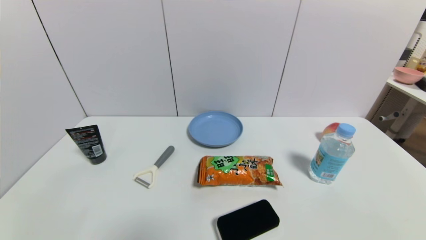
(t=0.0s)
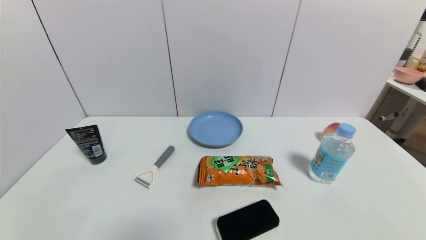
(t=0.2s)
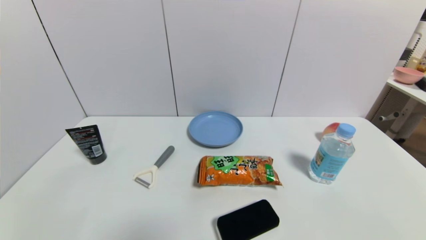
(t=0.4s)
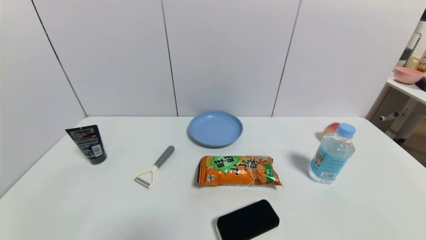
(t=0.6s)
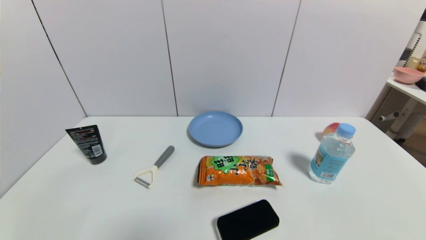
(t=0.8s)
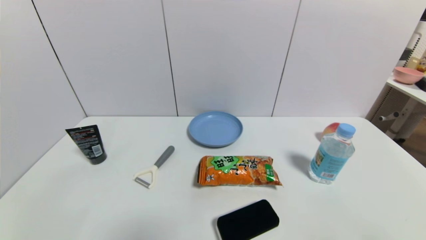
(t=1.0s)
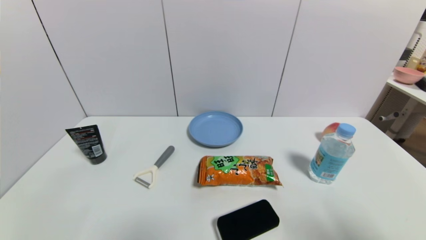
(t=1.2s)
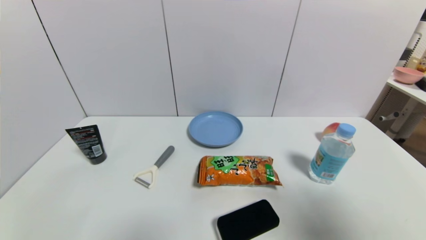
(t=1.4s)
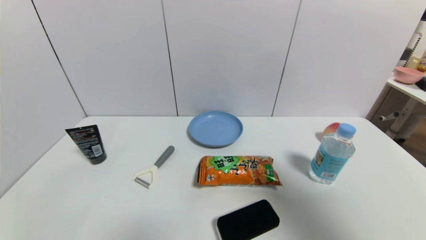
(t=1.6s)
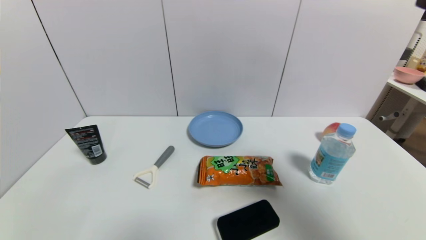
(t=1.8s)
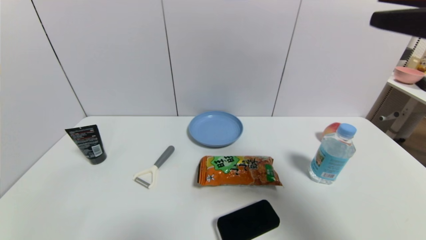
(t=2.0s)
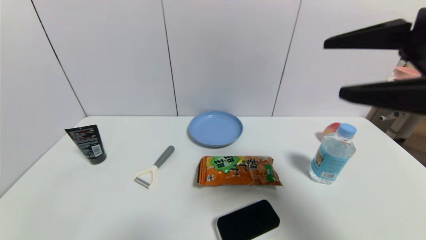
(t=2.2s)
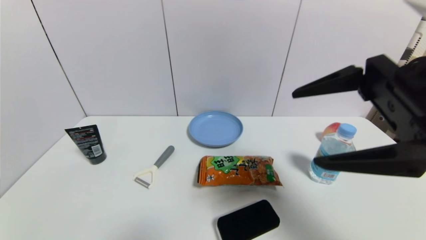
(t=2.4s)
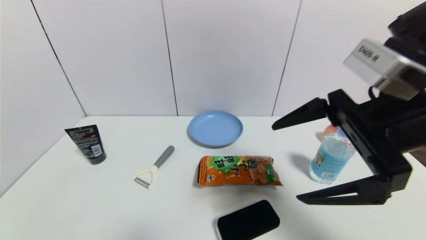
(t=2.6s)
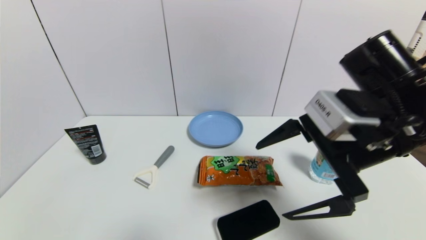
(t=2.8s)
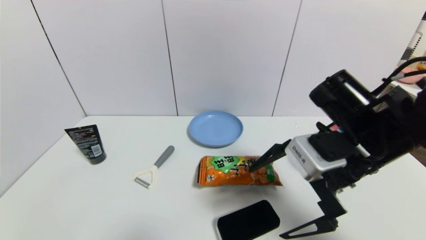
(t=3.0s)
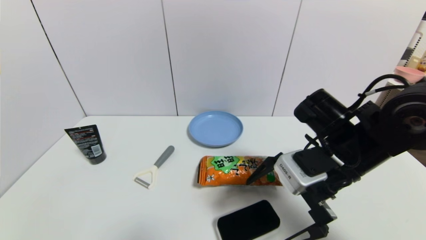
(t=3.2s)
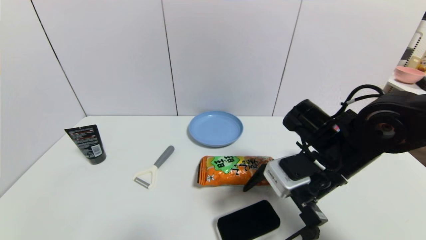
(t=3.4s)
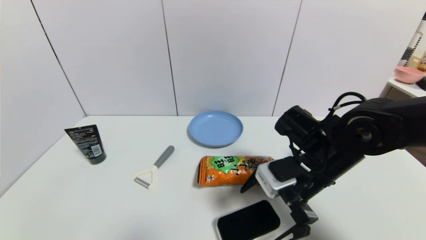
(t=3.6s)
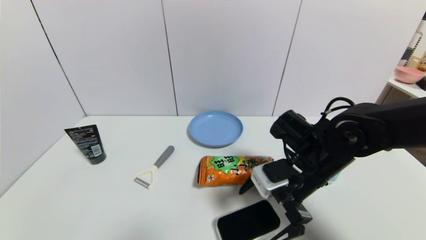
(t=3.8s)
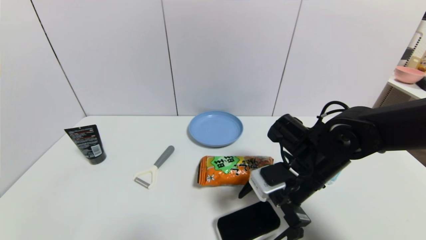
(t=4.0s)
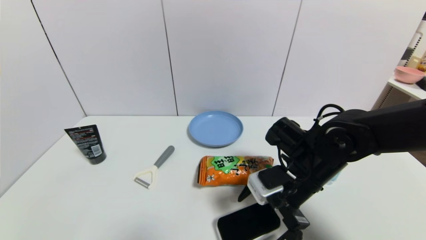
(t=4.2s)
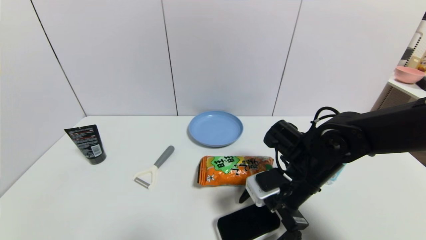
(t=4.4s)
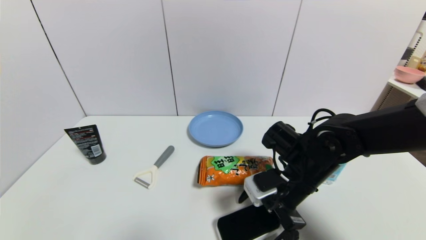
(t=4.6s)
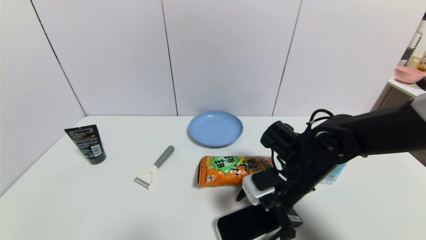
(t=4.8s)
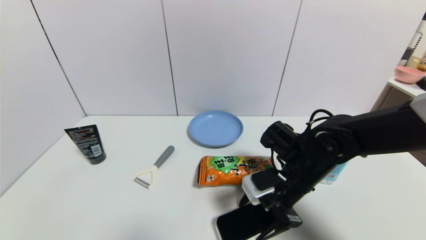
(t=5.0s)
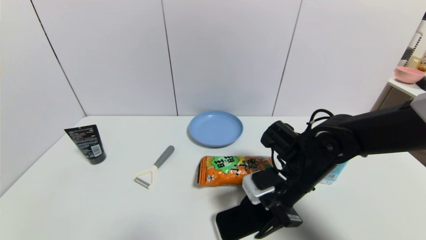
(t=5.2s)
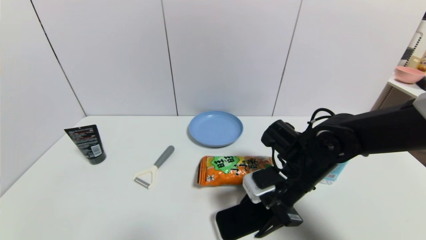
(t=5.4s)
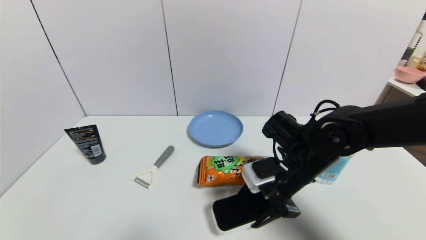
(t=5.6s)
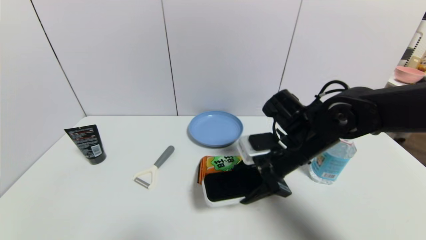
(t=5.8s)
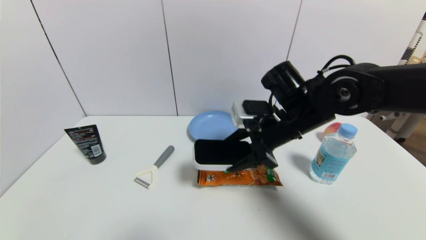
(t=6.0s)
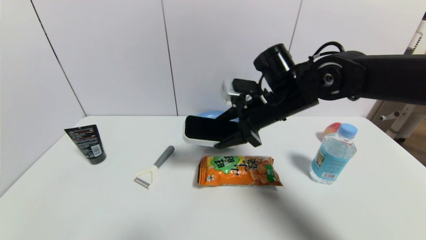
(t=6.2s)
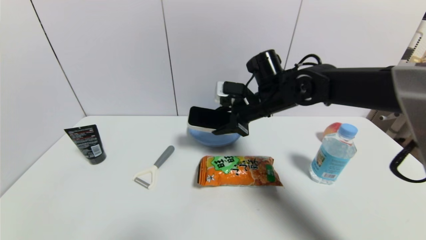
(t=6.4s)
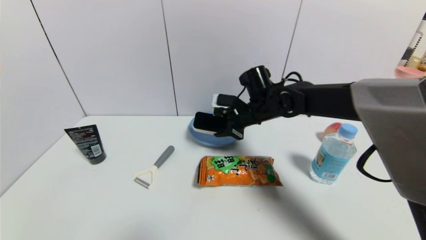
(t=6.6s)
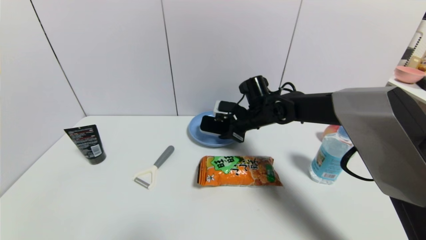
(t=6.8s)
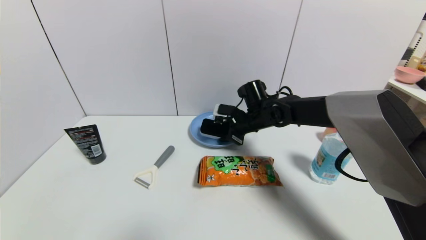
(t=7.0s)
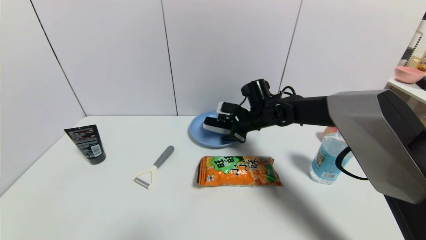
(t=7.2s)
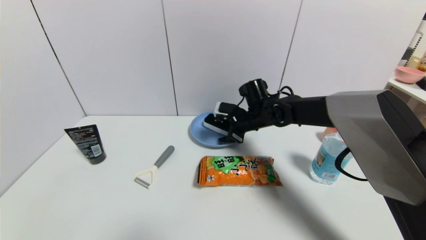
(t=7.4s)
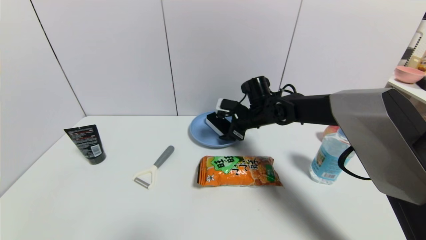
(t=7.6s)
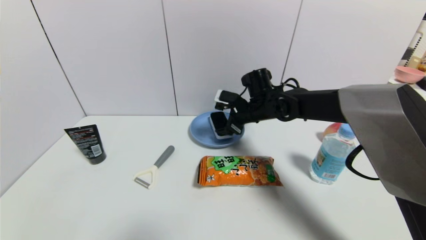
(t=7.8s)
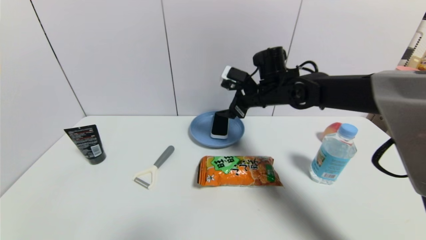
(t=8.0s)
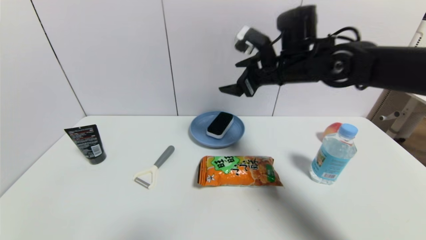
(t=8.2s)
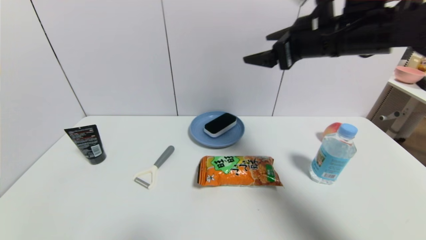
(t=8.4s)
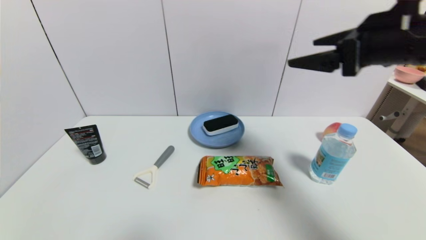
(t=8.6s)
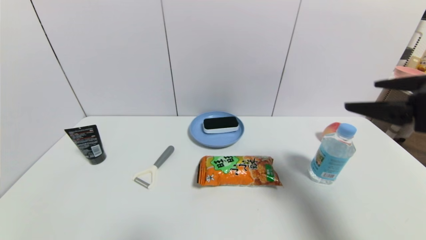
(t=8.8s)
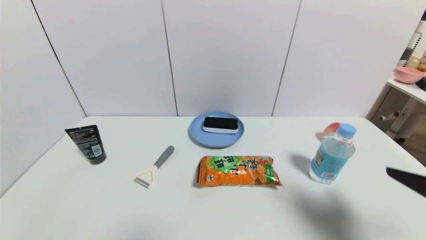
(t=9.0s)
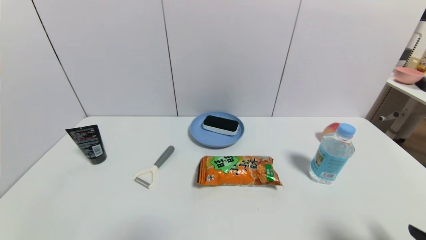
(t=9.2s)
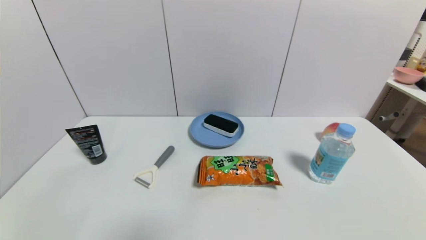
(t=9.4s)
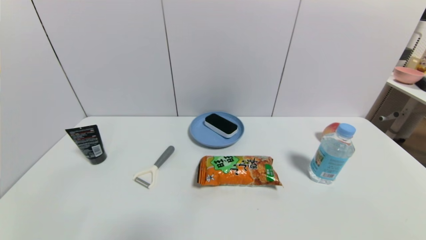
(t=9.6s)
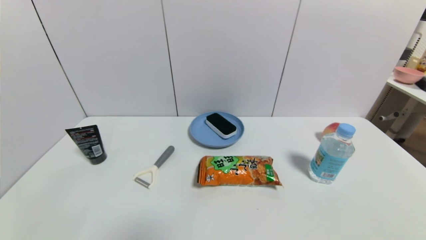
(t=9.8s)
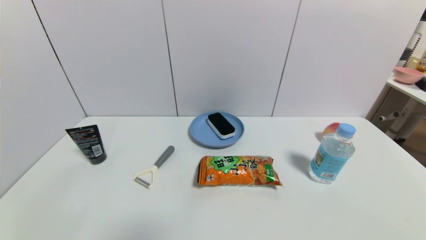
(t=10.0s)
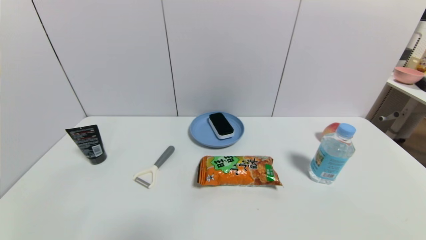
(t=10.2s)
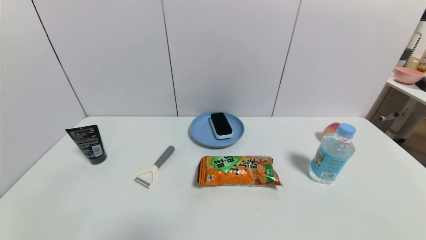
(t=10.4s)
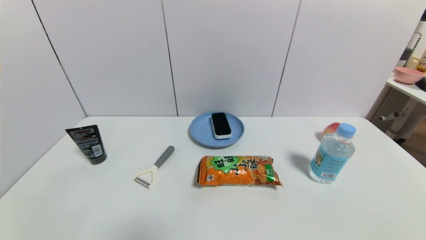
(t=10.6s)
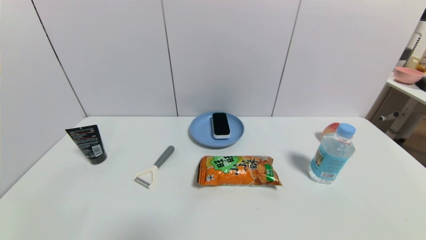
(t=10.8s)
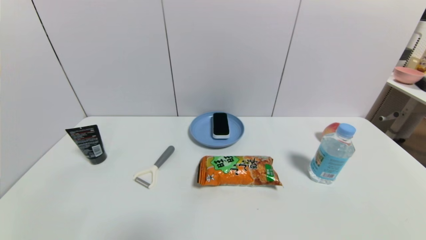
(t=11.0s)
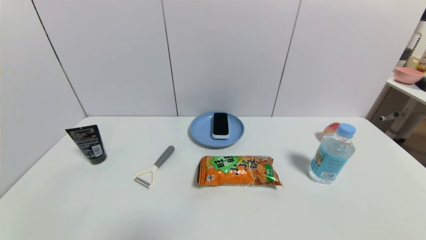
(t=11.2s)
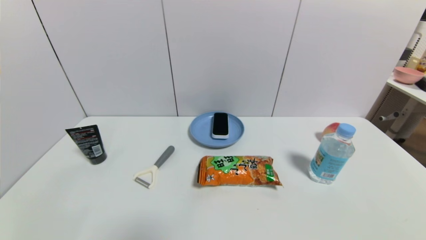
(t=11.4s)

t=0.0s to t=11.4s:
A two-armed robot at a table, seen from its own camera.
Task of the whole recording: use a gripper to pick the target object and place on the blue plate.
Step, t=0.0s to t=5.2s: Grasp the blackboard erasure with the right gripper.
Step, t=5.4s to t=8.2s: Place the blackboard erasure on the blue plate with the right gripper.
t=0.0s to t=1.4s: The right gripper is displaced upward by some 30 cm.
t=1.4s to t=2.8s: The right gripper heads forward, to the left and downward, covering roughly 25 cm.
t=2.8s to t=4.2s: The right gripper shifts approximately 15 cm downward.
t=4.2s to t=5.6s: The right gripper closes its fingers.
t=5.6s to t=7.2s: The right gripper travels forward by some 15 cm.
t=7.2s to t=8.6s: The right gripper shifts approximately 30 cm upward, backward and to the right, and opens its fingers.
t=8.6s to t=10.0s: The right gripper heads downward and backward, covering about 35 cm.
